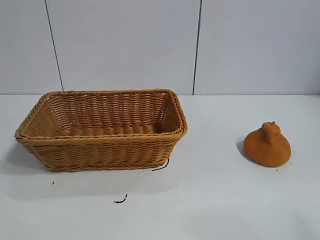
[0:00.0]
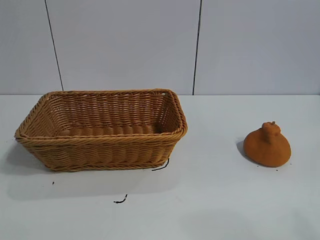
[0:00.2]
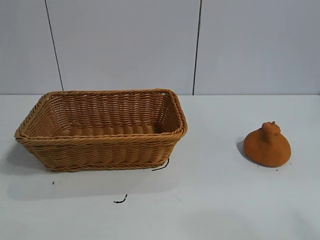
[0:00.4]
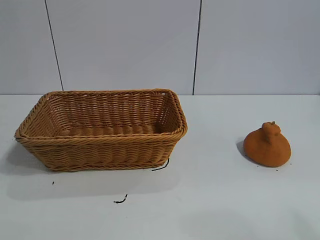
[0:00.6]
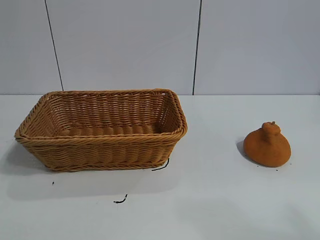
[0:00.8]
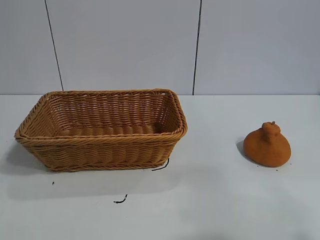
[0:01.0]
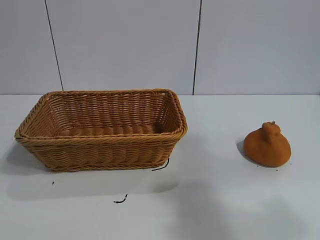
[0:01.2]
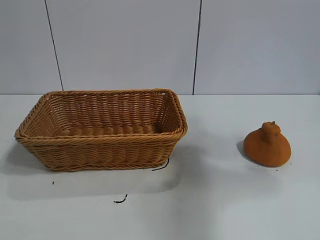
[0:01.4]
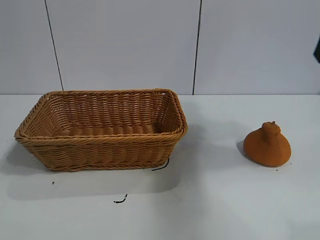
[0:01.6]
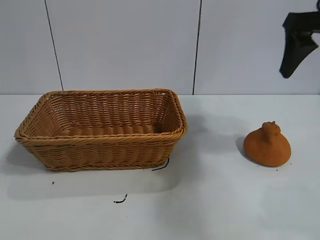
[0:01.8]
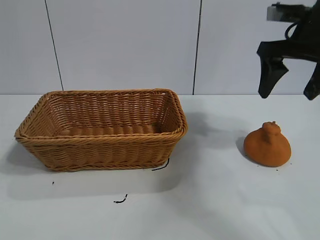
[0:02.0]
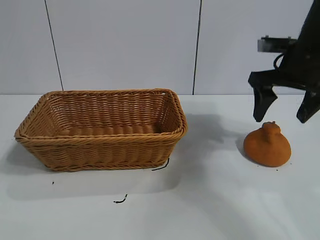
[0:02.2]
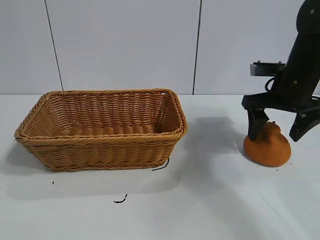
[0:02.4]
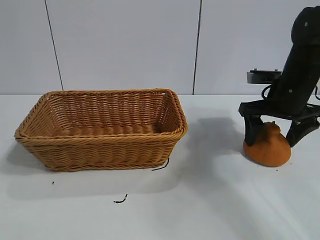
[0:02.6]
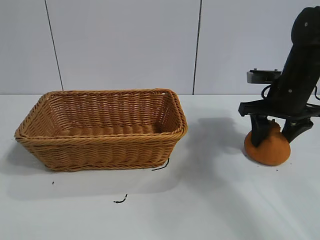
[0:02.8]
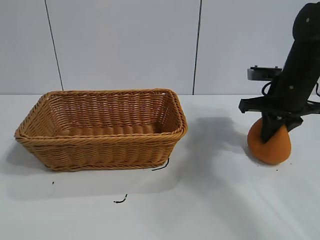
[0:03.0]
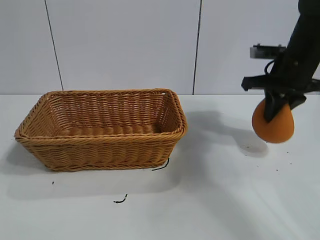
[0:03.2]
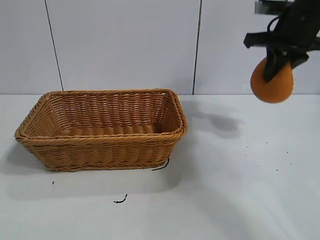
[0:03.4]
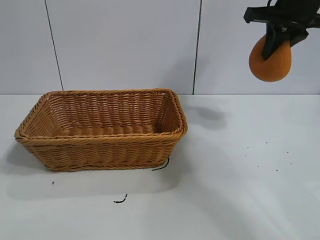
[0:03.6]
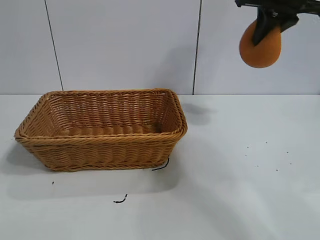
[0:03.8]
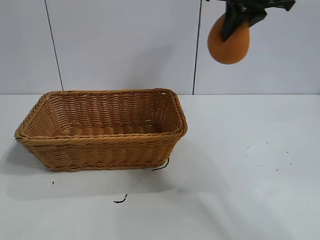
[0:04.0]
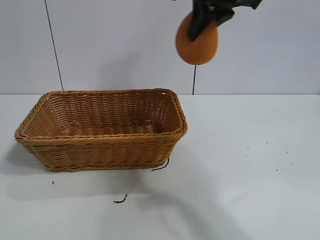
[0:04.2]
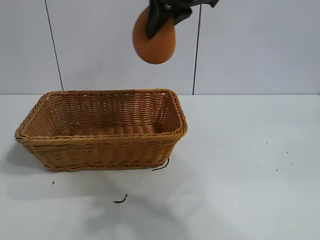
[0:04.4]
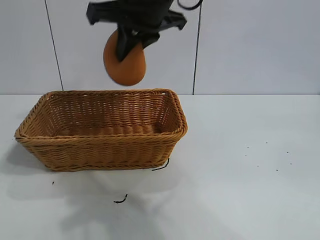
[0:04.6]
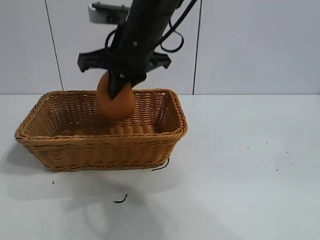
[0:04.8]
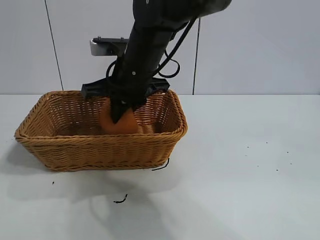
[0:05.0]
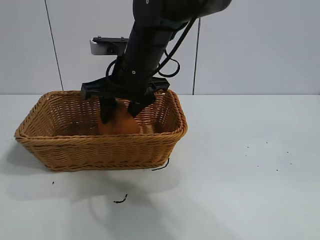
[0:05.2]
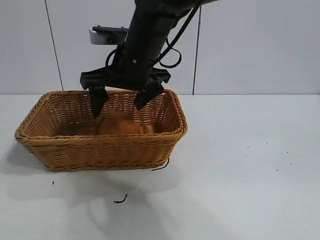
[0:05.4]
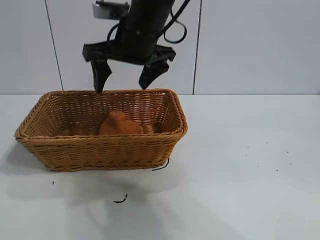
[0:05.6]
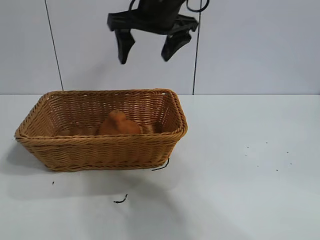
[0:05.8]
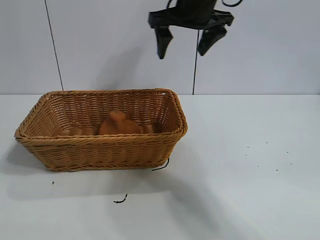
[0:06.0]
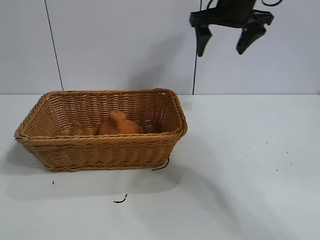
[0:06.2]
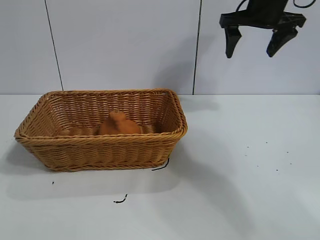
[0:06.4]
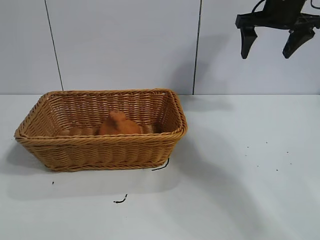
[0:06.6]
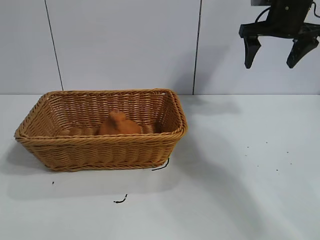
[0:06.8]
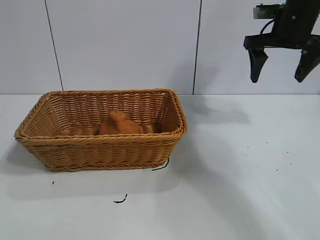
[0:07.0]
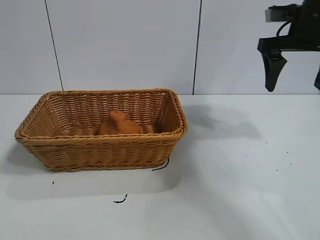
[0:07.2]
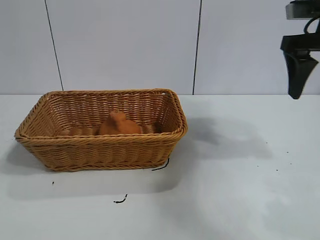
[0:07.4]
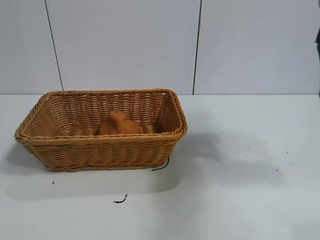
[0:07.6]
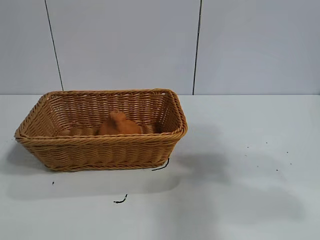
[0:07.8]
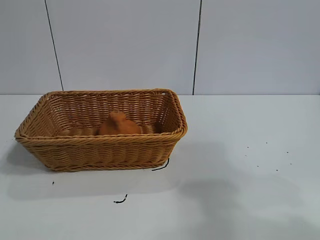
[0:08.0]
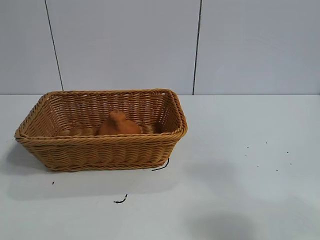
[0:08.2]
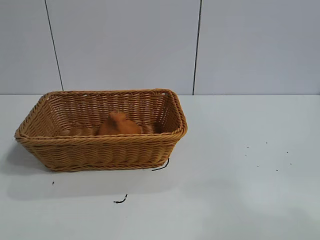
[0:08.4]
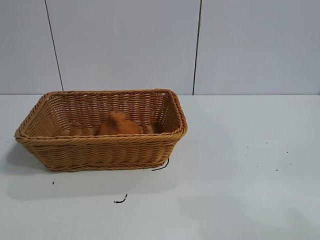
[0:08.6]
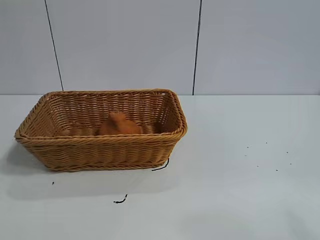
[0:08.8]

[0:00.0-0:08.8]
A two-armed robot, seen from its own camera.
Task of the whole recording: pick up the orange and put it into the basket.
Step, 0:00.8 to 0:03.0: Grasp the orange with right gripper.
Step, 0:03.2 to 0:05.2: Place the orange in the basket with right gripper.

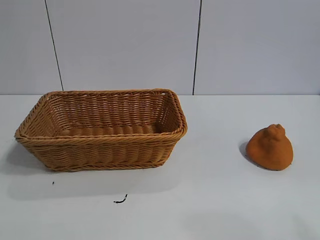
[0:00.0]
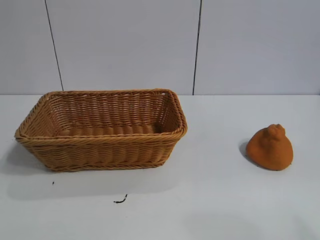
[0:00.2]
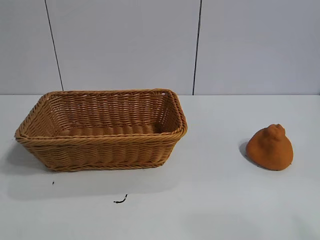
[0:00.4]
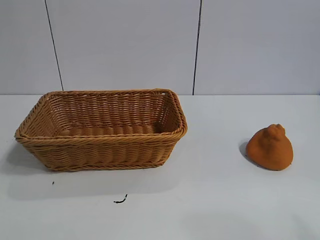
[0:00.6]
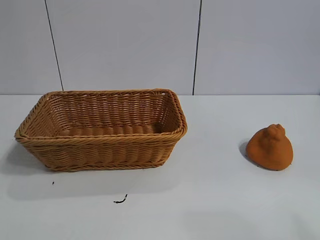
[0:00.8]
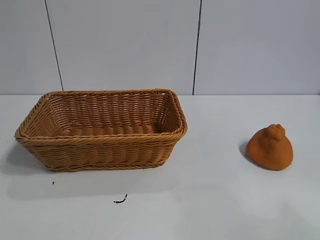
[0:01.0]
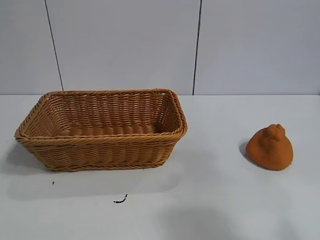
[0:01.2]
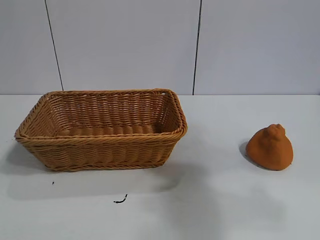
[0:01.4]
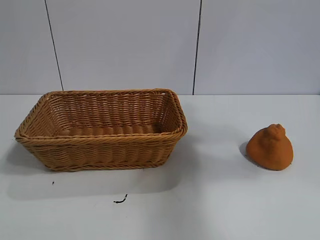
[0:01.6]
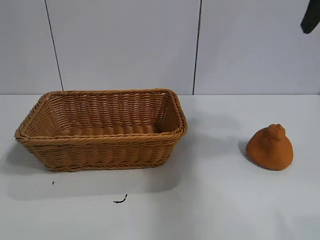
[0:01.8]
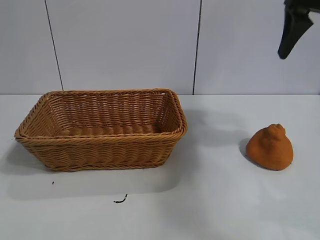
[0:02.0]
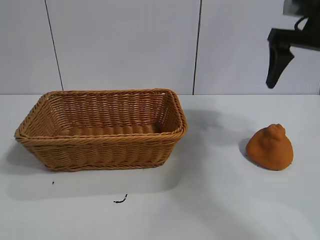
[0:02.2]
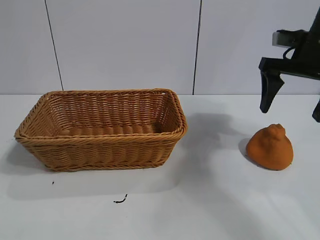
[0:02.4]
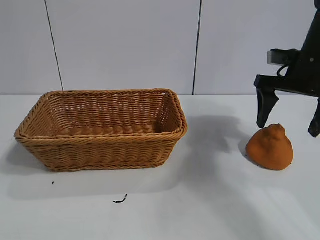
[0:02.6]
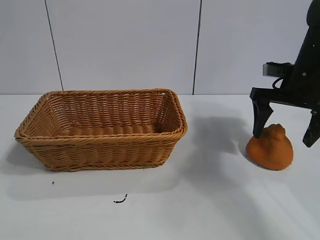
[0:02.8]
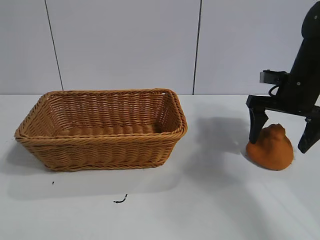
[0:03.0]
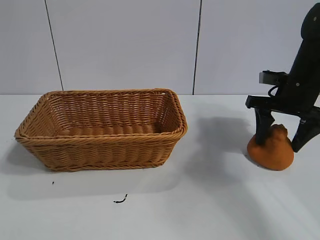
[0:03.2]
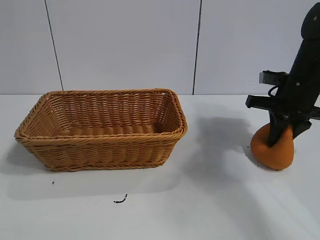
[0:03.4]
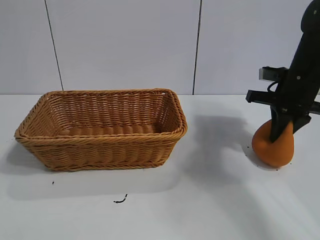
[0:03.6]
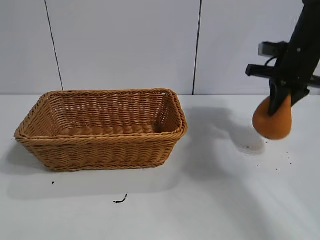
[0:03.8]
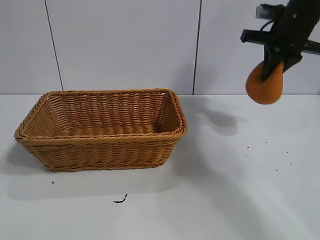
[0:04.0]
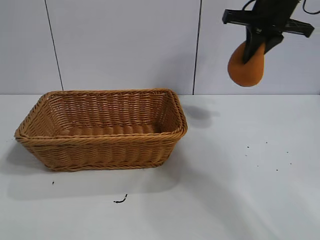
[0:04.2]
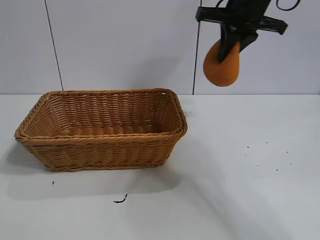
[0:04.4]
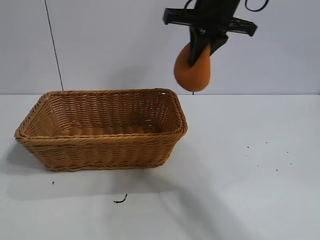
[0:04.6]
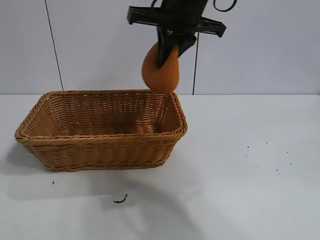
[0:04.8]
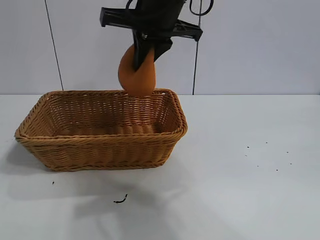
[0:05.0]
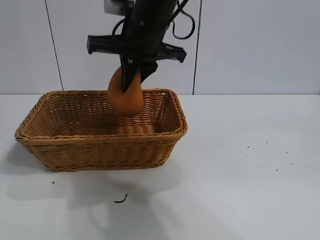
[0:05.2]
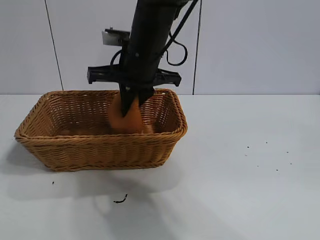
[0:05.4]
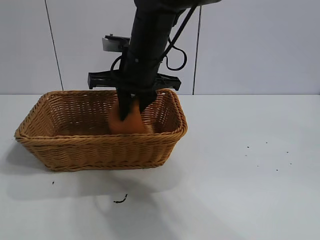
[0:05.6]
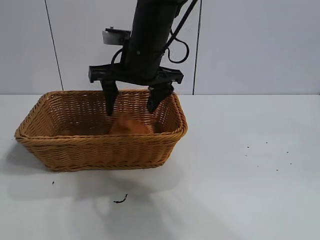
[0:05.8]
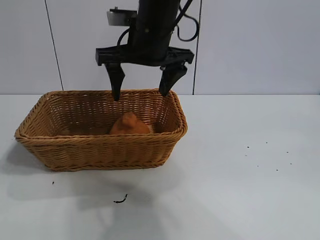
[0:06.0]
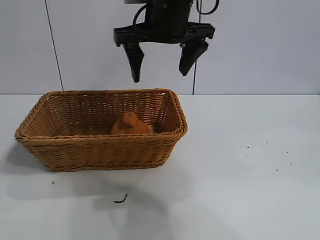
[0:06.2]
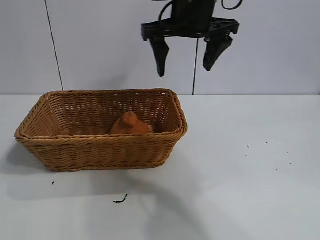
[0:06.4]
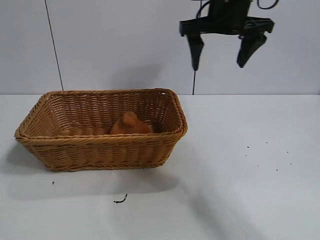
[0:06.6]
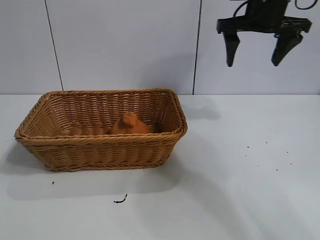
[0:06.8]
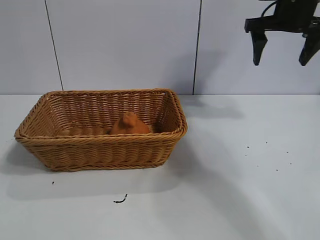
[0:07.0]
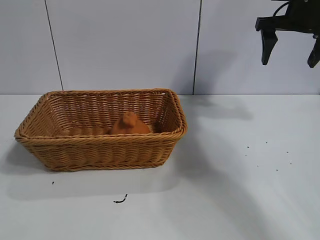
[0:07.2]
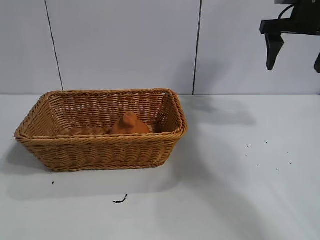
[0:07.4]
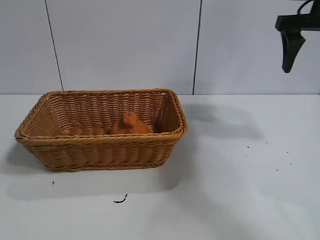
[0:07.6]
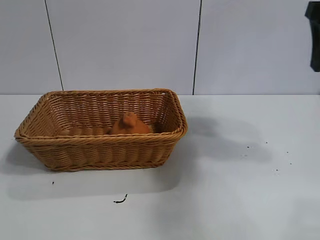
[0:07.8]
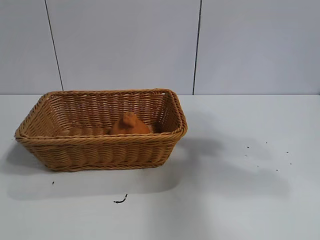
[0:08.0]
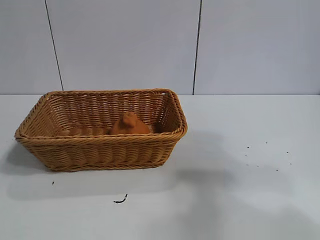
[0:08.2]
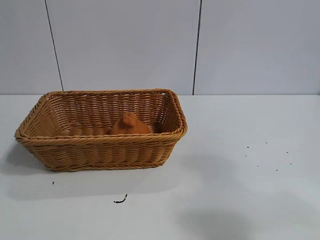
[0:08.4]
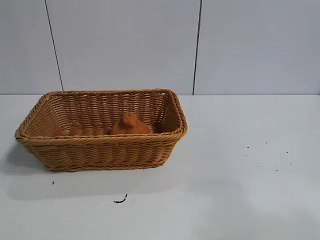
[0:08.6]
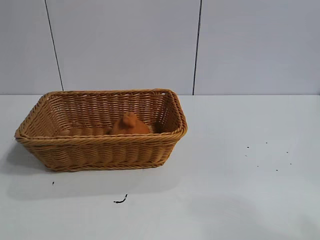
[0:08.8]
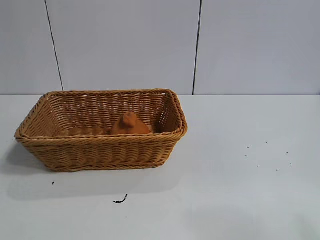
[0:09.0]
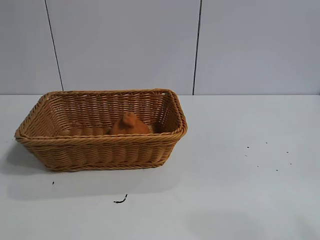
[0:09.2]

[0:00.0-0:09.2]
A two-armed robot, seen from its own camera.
Task of the whole recording: pick up the orange and put it into the basket.
Step, 0:00.8 to 0:03.4: Grasp the orange with right gripper.
Step, 0:03.6 to 0:05.8: Place the orange in the basket with right gripper.
